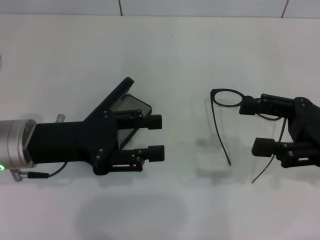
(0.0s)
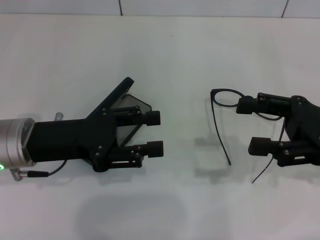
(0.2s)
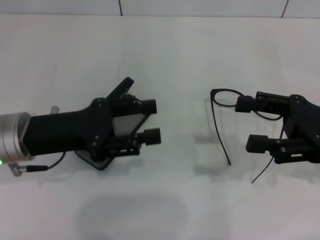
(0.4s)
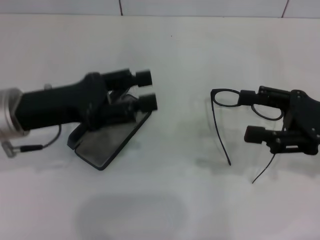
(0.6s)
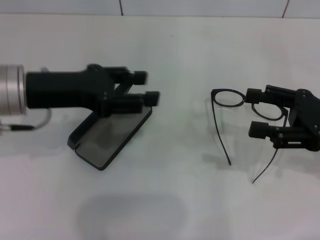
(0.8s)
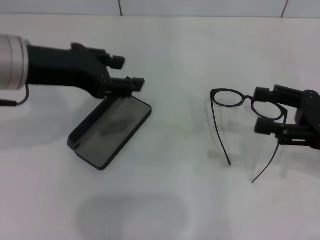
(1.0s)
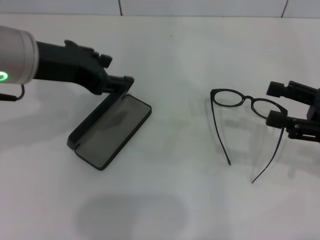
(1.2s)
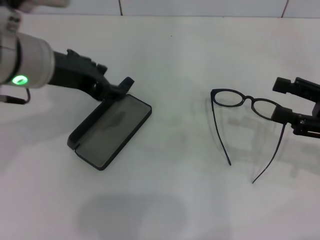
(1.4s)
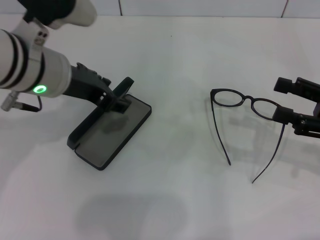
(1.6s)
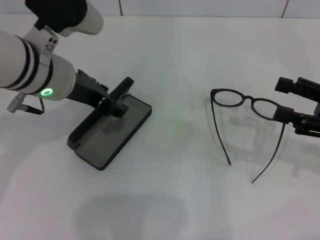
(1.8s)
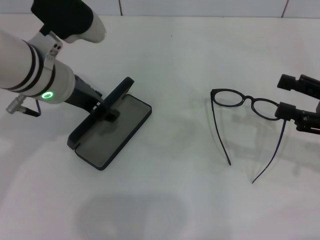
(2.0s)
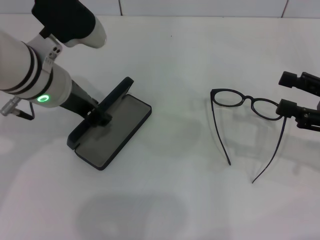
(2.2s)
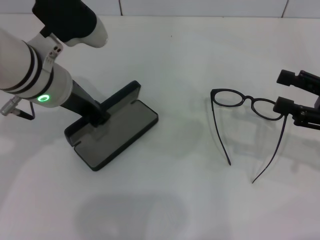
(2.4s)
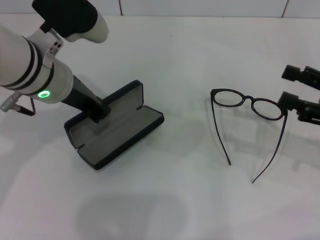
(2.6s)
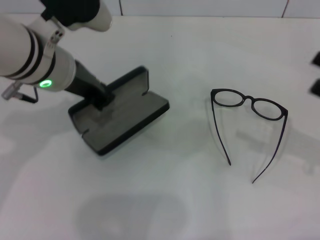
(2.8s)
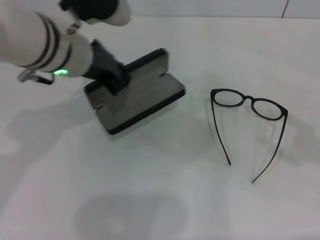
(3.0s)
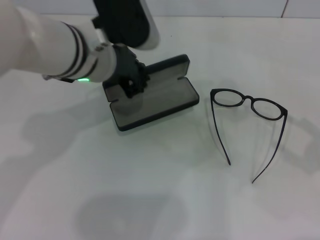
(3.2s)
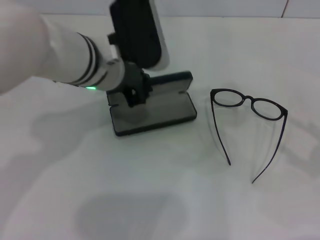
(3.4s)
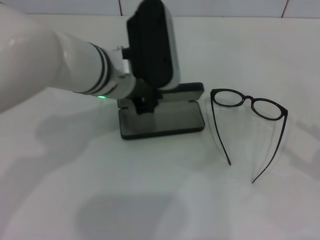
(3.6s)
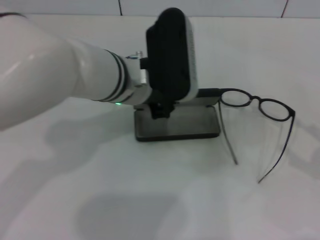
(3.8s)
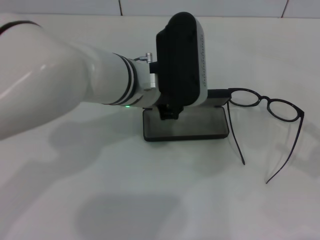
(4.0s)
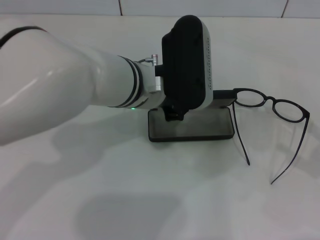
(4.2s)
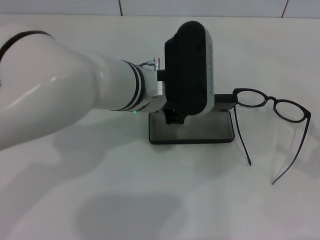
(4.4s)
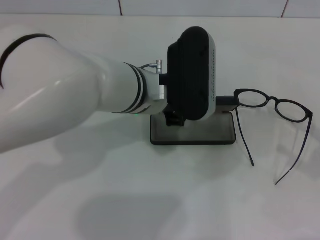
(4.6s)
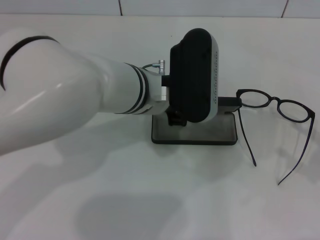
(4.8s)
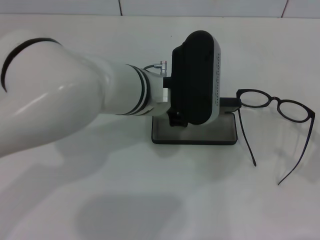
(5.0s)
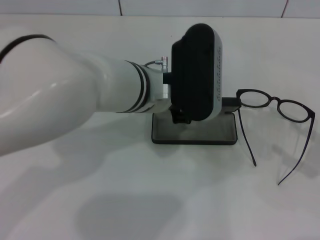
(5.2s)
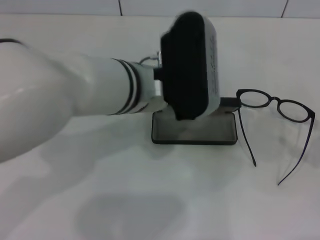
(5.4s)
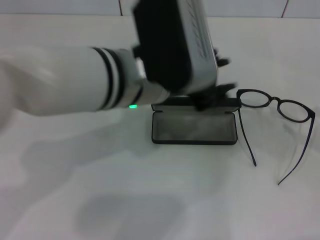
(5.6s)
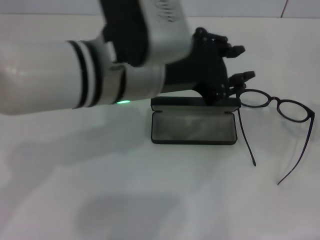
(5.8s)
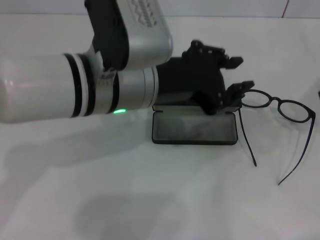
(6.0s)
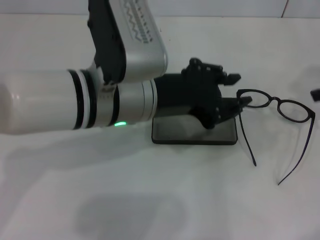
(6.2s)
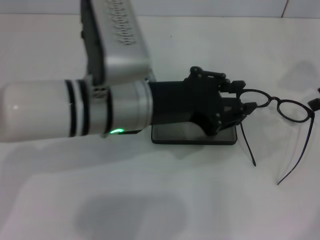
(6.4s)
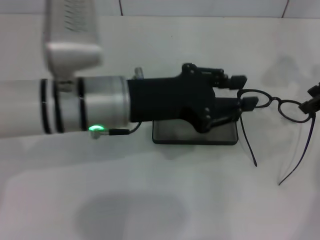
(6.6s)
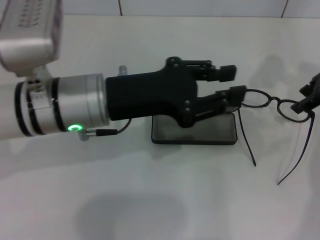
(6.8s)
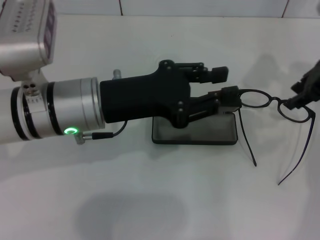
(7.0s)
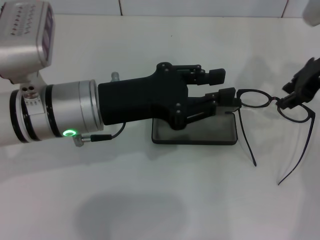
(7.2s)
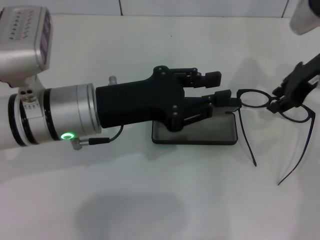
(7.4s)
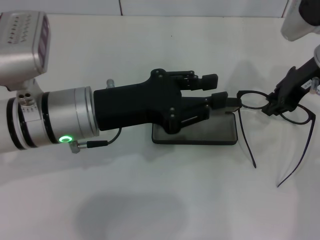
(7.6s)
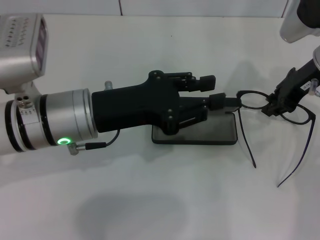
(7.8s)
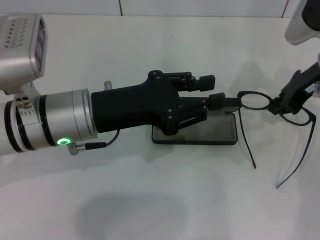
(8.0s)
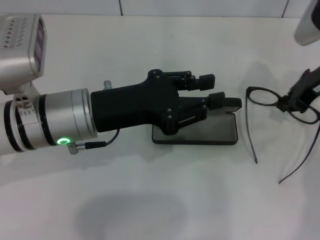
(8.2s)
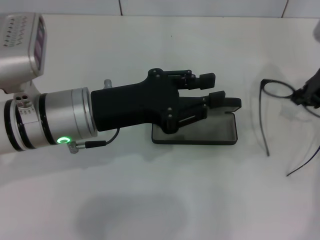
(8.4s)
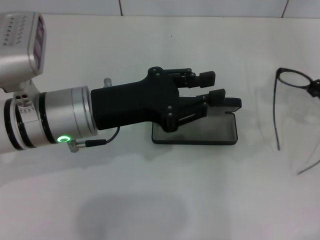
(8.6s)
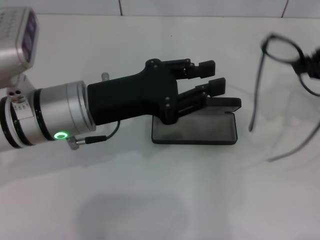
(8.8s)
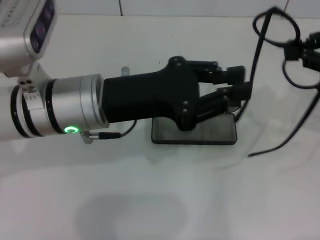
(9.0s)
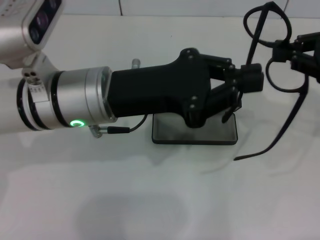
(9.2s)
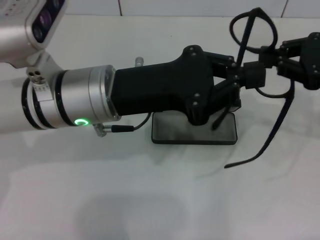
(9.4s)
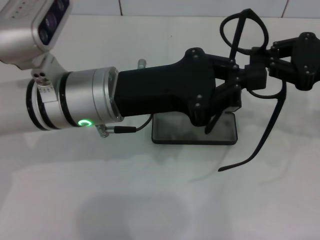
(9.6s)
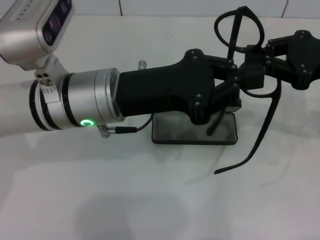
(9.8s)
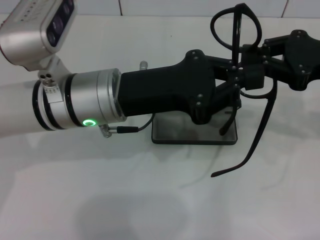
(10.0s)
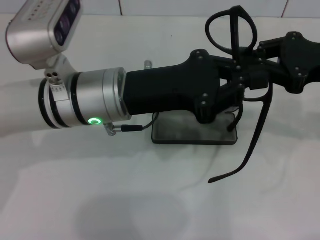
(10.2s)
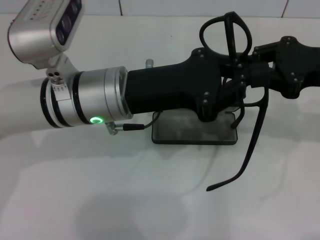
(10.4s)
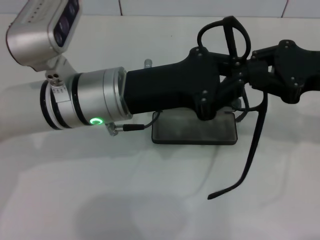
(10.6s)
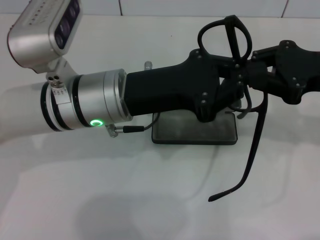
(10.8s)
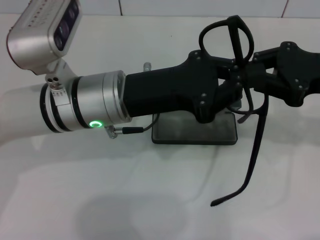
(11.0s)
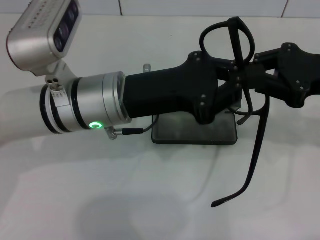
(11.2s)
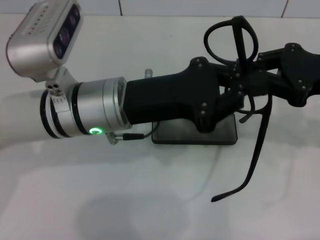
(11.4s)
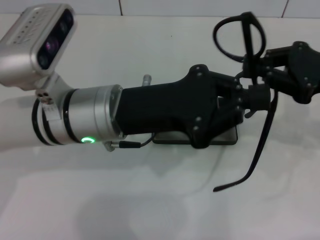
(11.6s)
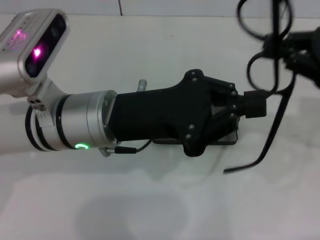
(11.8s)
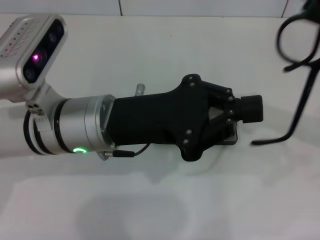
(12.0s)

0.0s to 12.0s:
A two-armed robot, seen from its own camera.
Step, 0.0s to 2.2s: Grab the glasses case with your left hand.
Step, 2.6s to 4.8s: Place the glasses case in the center of the table with your left hand.
Step, 5.0s to 7.8s: Grab the eyeglass frame with your right hand.
0.0s to 1.6s: The left gripper moves upward, to the right and forward, some 10 cm.
1.6s to 3.0s: The right gripper moves to the right, approximately 5 cm. Meanwhile the left gripper closes up.
3.0s to 4.4s: The left gripper heads to the right and downward, covering some 10 cm.
4.4s to 6.0s: The left gripper goes roughly 5 cm upward. The right gripper shifts approximately 15 cm forward and upward.
6.0s to 7.6s: The right gripper heads to the left and forward, covering approximately 15 cm, and closes up, while the left gripper is displaced to the left and downward by some 10 cm.
7.6s to 9.0s: The right gripper heads backward, to the right and upward, covering approximately 15 cm, and closes up.
9.0s to 10.4s: The left gripper closes its fingers. The right gripper changes place by roughly 5 cm.
10.4s to 12.0s: The right gripper changes place by about 5 cm.

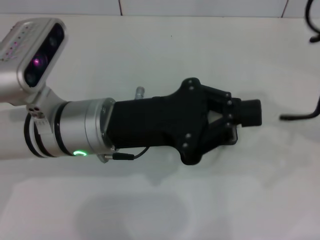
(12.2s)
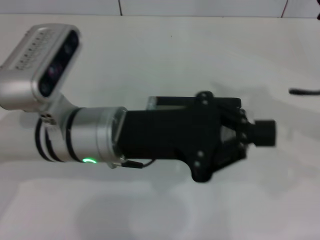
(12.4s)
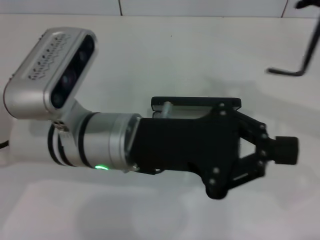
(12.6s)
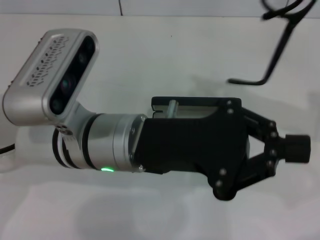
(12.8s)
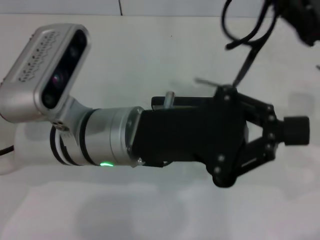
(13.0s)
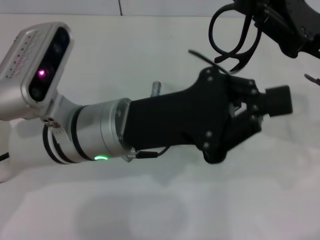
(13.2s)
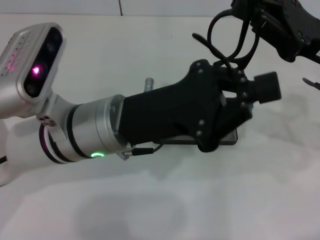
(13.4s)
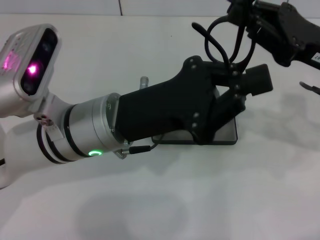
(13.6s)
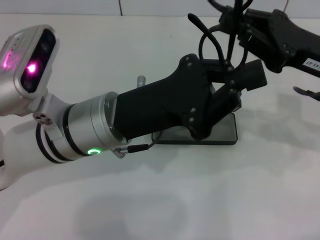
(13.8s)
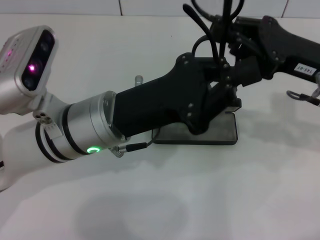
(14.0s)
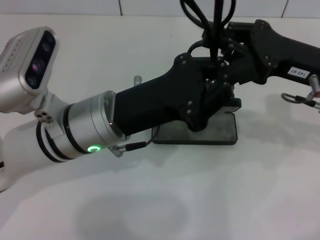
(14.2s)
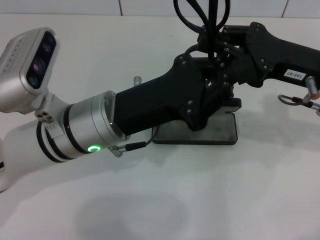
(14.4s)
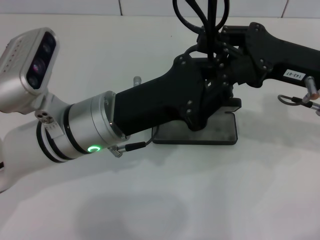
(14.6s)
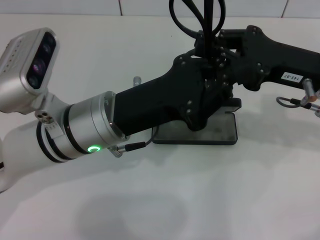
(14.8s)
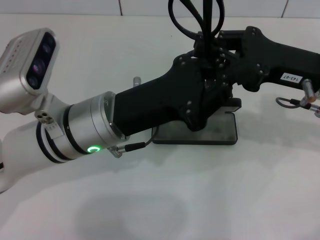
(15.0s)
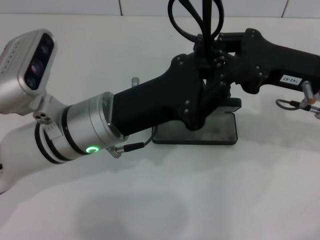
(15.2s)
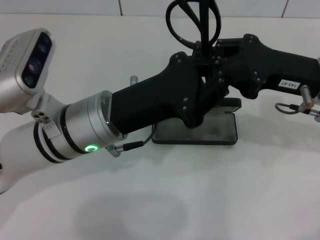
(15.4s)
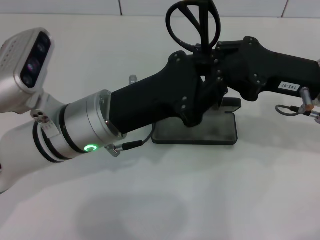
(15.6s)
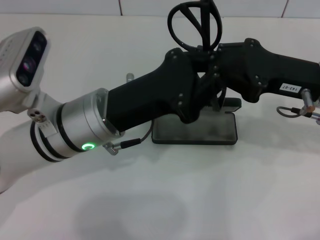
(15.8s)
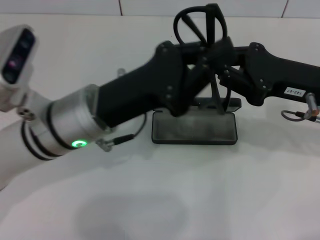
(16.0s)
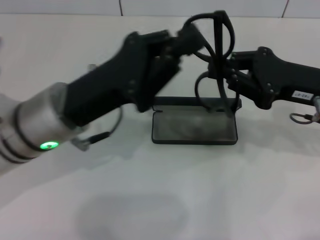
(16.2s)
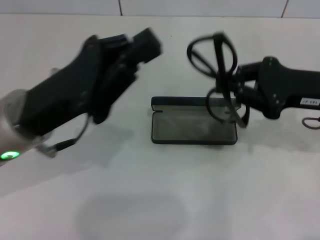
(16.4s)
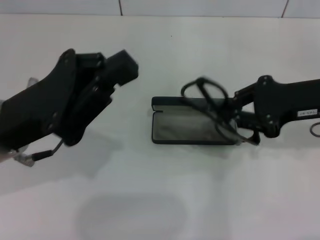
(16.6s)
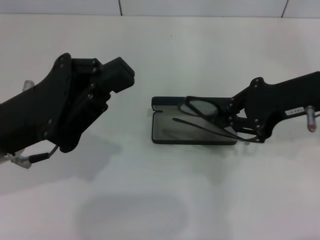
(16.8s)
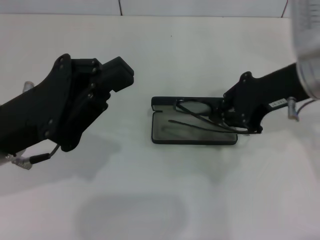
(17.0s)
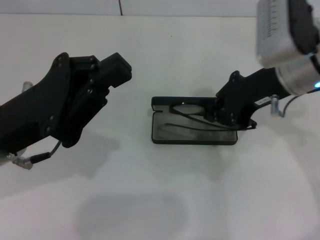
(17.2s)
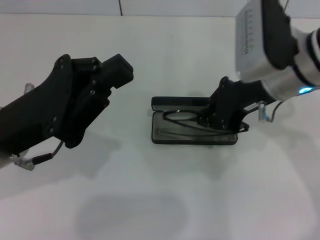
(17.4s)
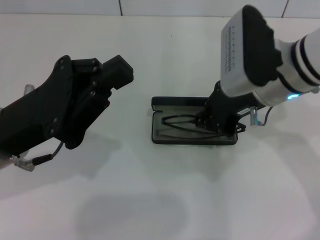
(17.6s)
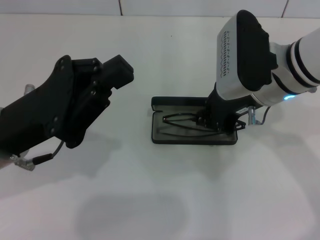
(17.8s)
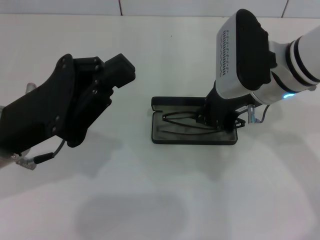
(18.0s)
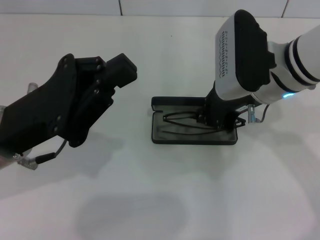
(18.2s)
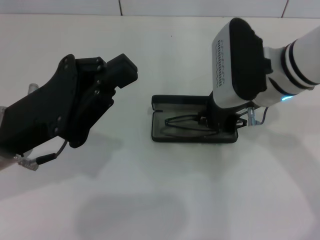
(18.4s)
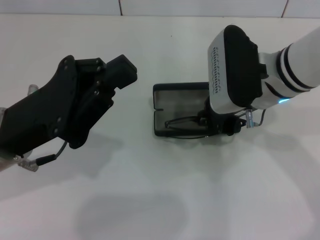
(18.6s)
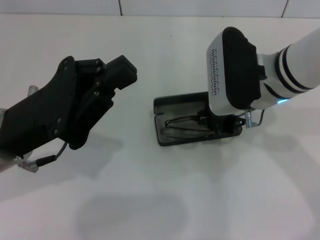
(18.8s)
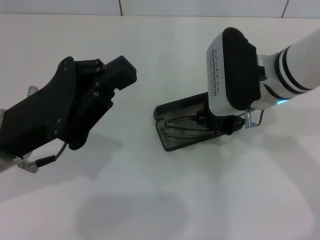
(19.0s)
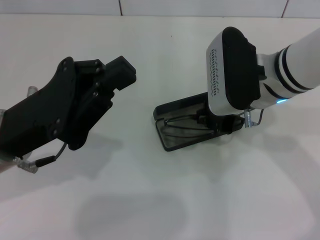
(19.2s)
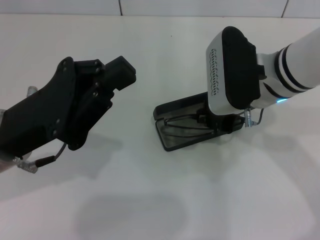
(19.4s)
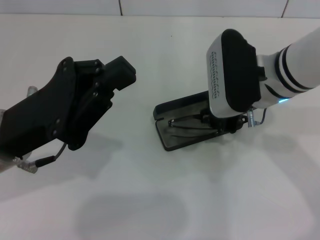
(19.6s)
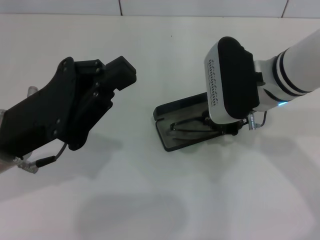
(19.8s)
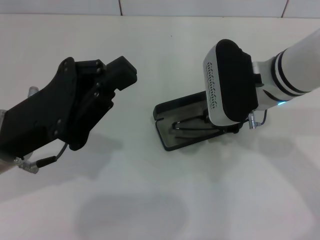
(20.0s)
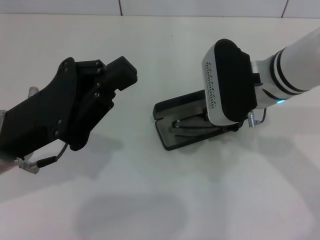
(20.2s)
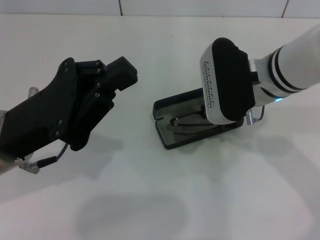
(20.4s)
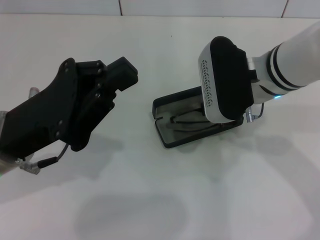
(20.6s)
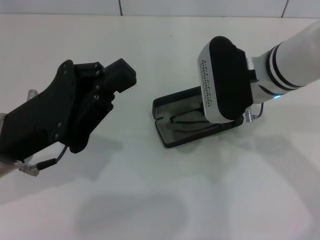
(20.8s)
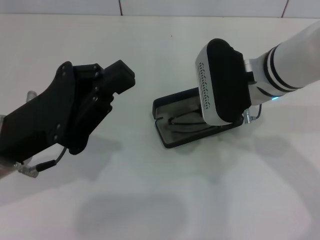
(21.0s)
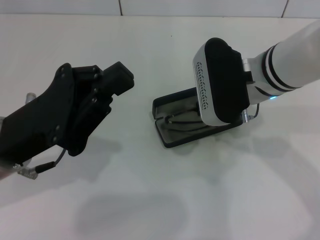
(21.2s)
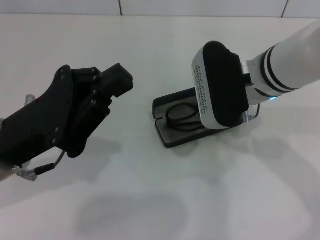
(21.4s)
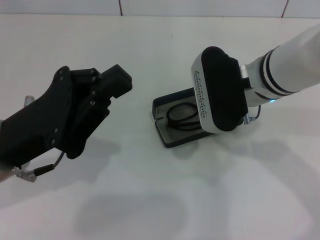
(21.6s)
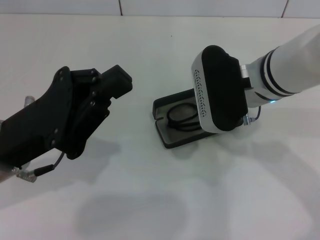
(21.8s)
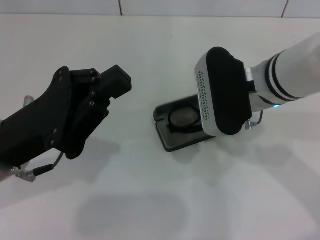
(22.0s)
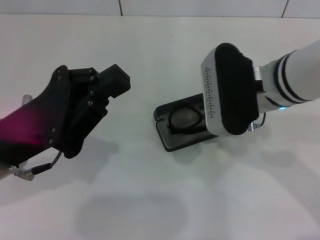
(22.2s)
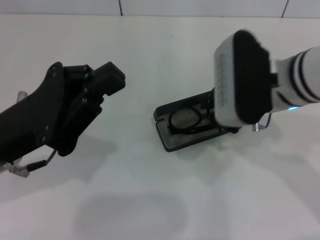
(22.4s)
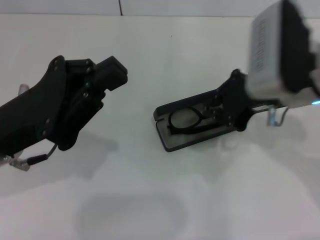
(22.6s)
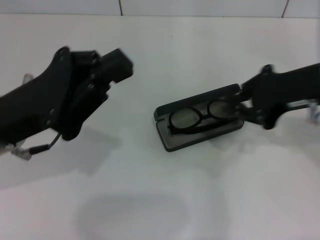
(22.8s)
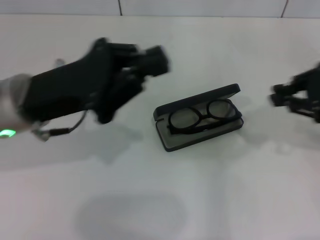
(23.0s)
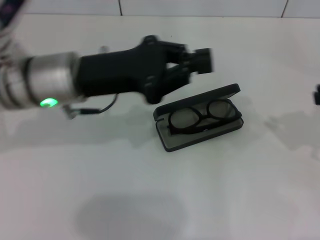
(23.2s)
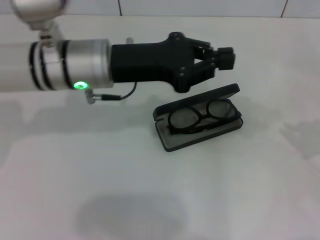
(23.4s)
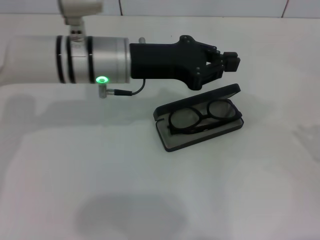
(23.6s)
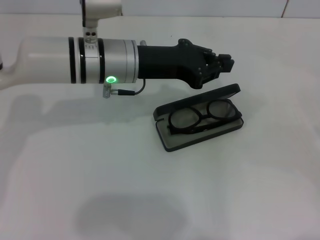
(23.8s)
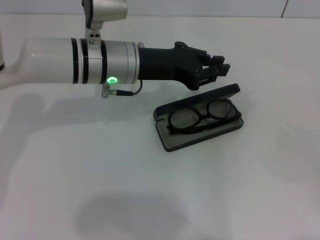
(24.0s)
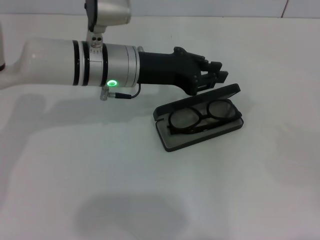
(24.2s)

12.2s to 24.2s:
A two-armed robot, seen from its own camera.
Step, 12.2s to 15.4s: Lift the glasses with your right hand.
Step, 15.8s to 22.0s: Put the glasses into the case with your right hand.
12.2s to 13.8s: The right gripper travels to the left and downward by some 10 cm.
13.8s to 15.2s: There are only small adjustments of the grippers.
15.2s to 16.6s: The left gripper moves to the left, roughly 10 cm.
16.6s to 18.2s: The right gripper heads to the left, covering some 10 cm.
18.2s to 21.2s: There are only small adjustments of the grippers.
21.2s to 22.6s: The right gripper moves to the right, about 5 cm.
22.6s to 24.2s: The right gripper travels to the right by some 30 cm; the left gripper goes approximately 20 cm forward and to the right.
